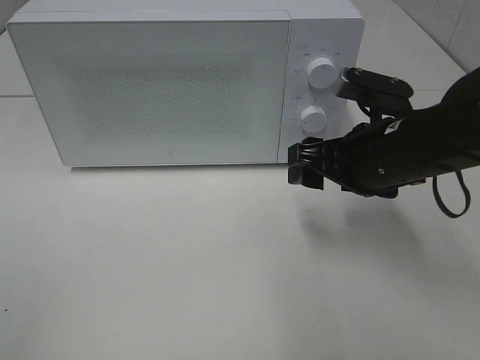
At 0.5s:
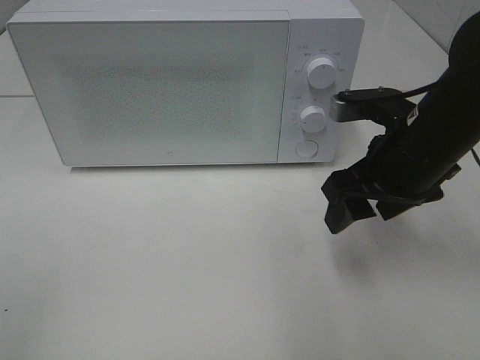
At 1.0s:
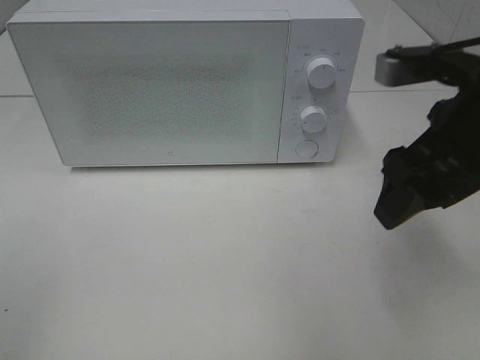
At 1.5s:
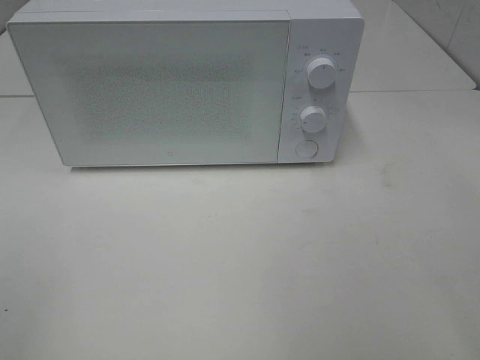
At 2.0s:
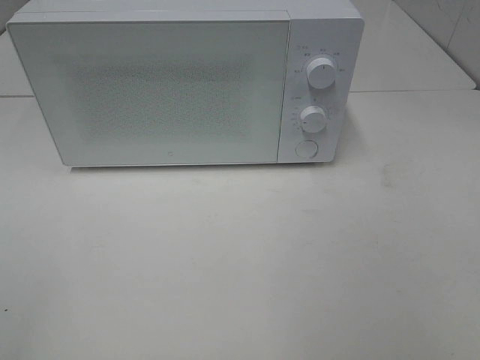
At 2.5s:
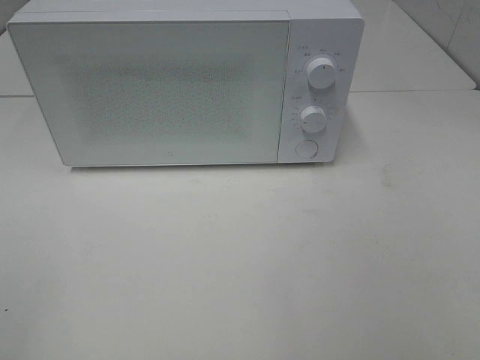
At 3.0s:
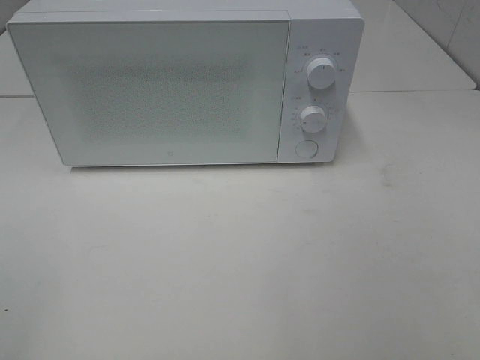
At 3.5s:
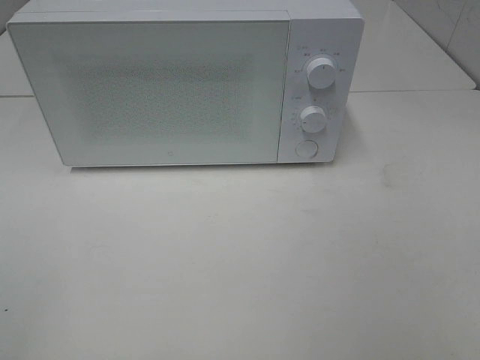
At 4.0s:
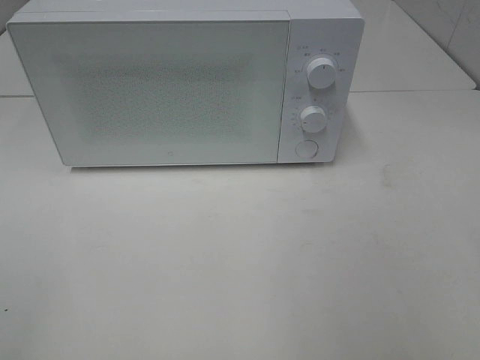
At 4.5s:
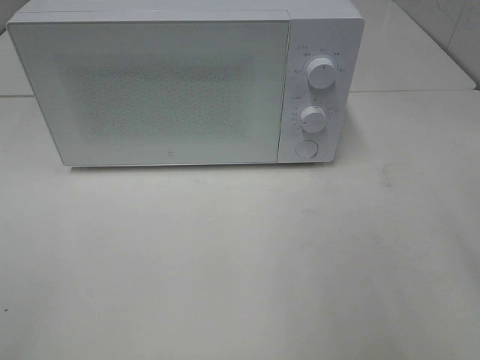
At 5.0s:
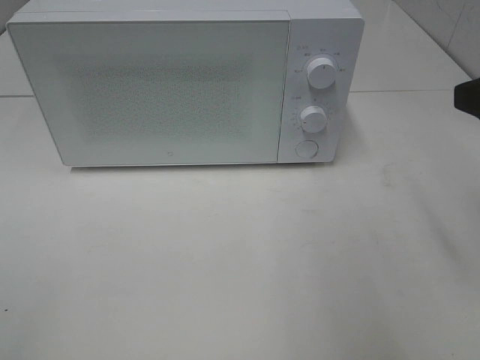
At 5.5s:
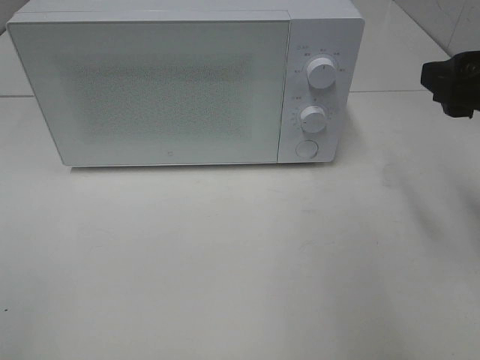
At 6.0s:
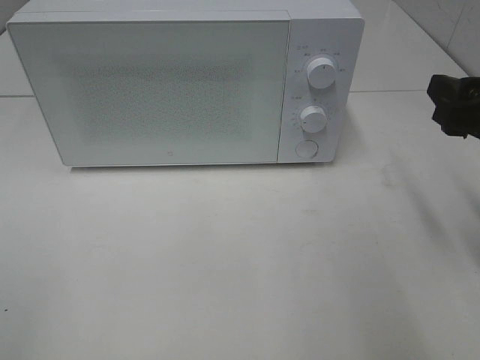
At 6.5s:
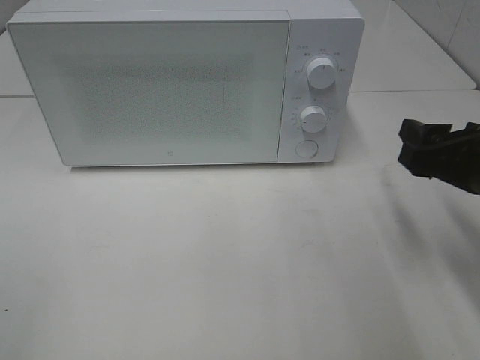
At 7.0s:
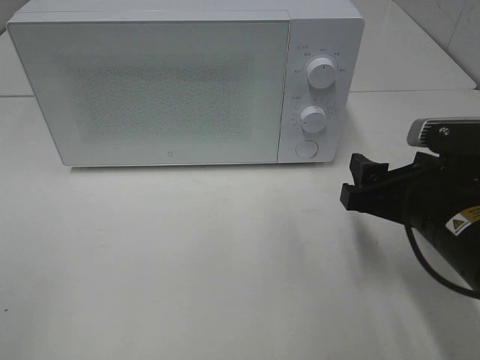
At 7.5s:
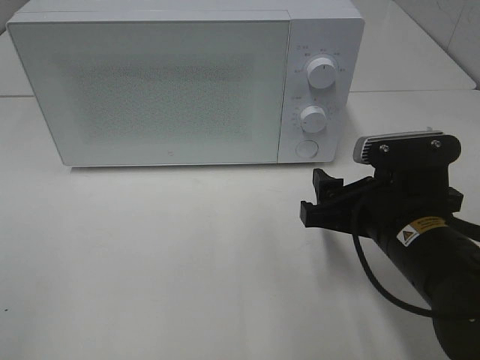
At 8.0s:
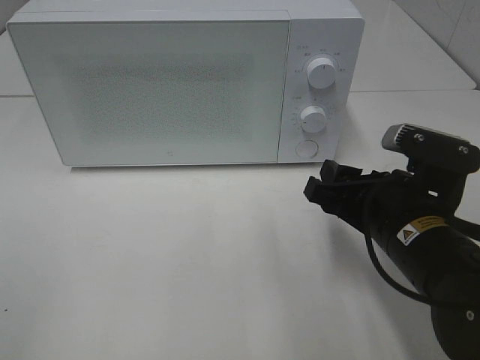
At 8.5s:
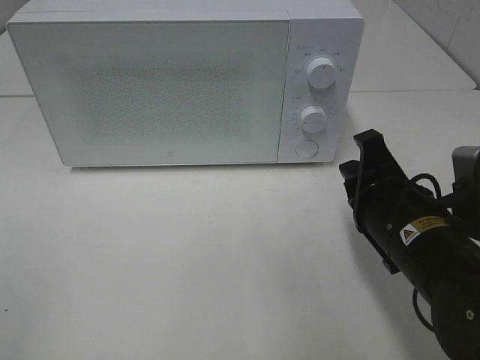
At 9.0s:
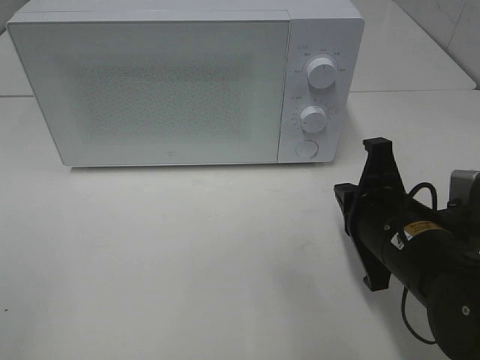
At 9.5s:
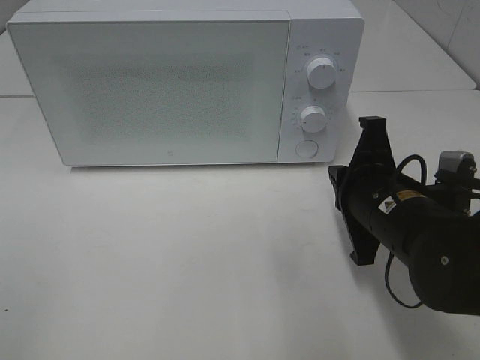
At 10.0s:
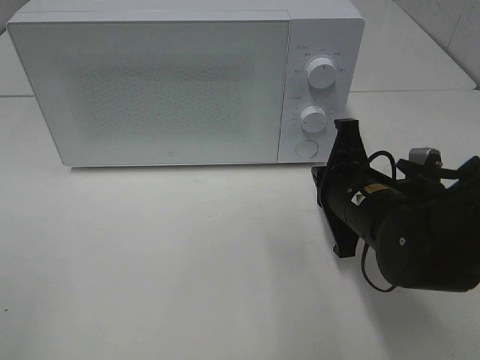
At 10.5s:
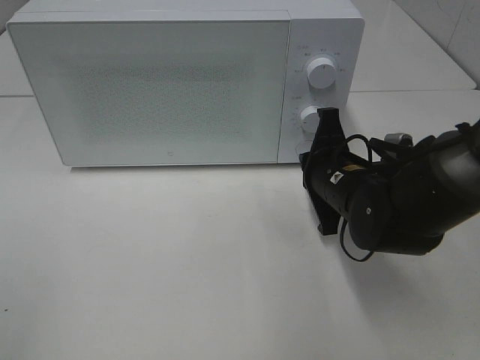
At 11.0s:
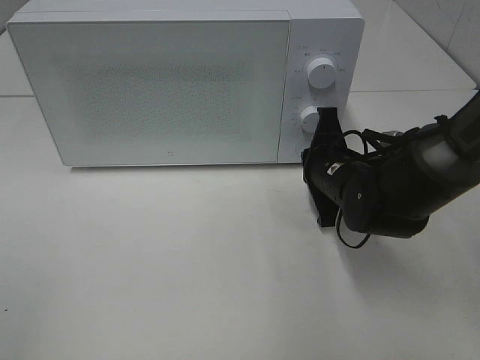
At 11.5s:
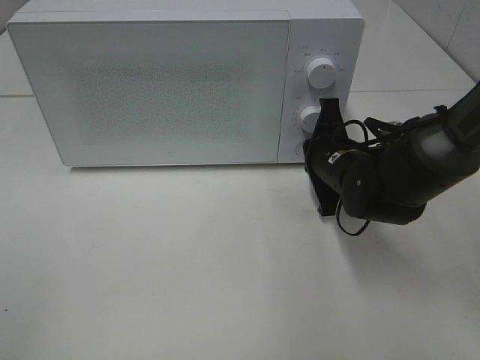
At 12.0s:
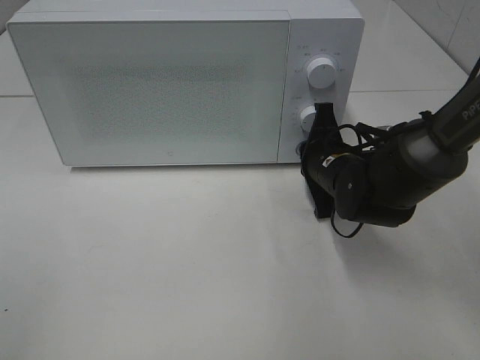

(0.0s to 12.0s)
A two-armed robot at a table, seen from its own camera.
Task of the whole recording: Heat the burger.
0.0s - 2.0s: The right gripper shifts approximately 30 cm backward, upward and to the right.
4.0s - 6.0s: The right gripper shifts roughly 20 cm forward and downward.
6.0s - 8.0s: The right gripper heads to the left and downward, covering roughly 15 cm.
8.0s - 10.0s: The right gripper shifts some 5 cm forward, and closes.
10.0s - 12.0s: The right gripper travels forward by roughly 10 cm.

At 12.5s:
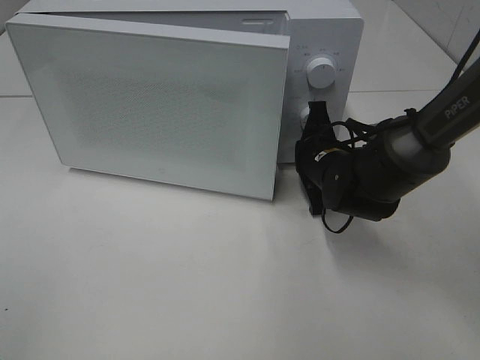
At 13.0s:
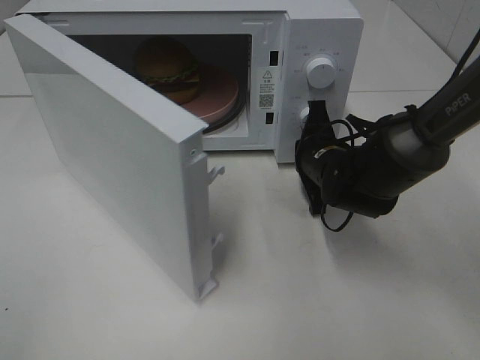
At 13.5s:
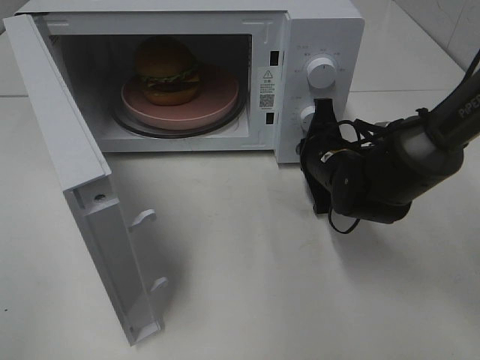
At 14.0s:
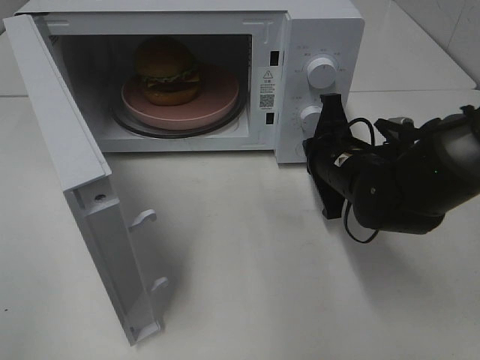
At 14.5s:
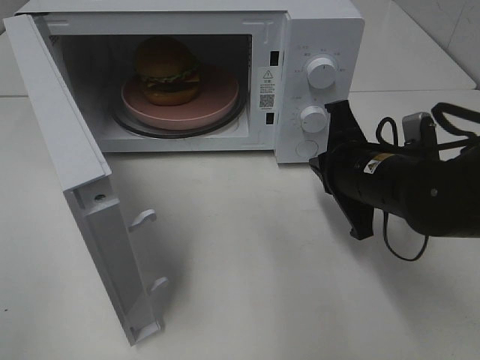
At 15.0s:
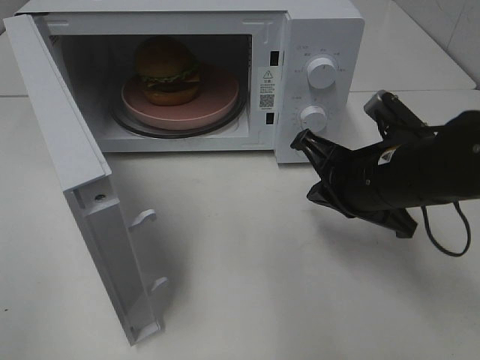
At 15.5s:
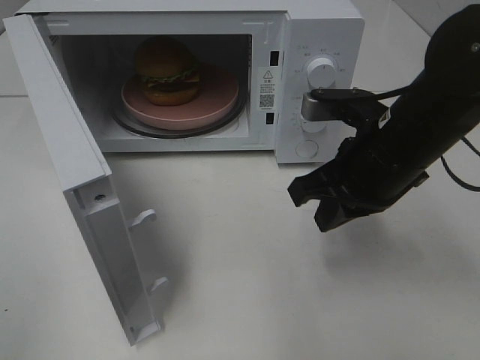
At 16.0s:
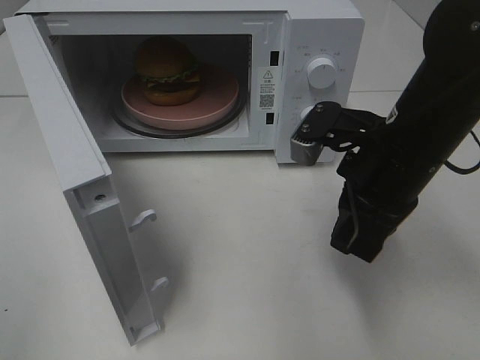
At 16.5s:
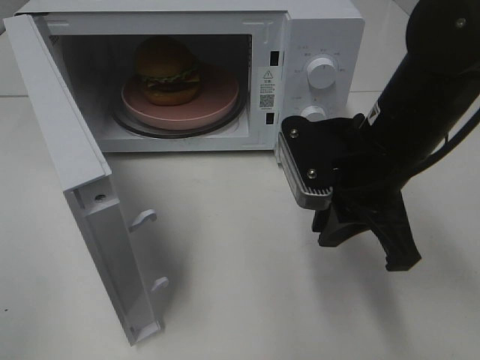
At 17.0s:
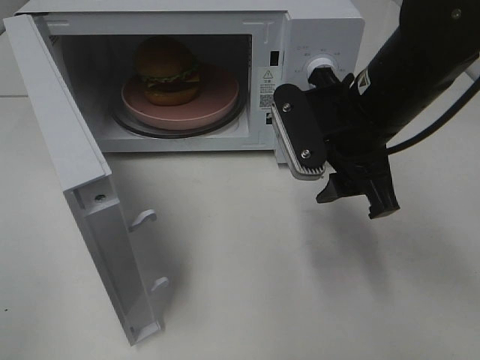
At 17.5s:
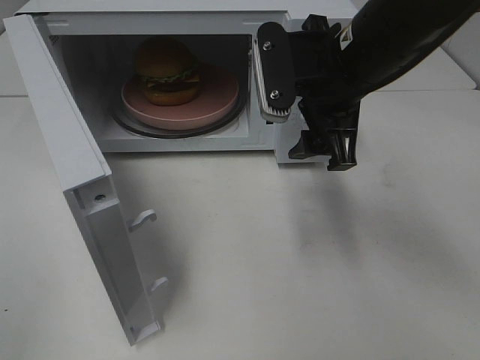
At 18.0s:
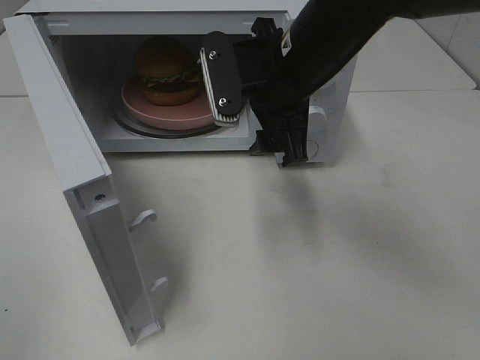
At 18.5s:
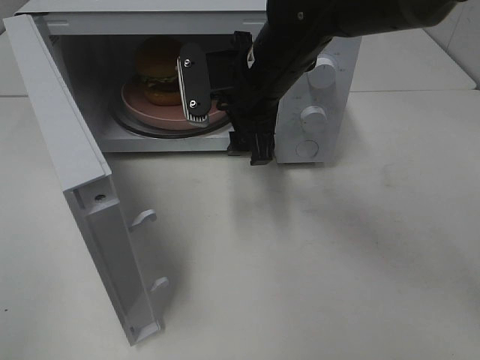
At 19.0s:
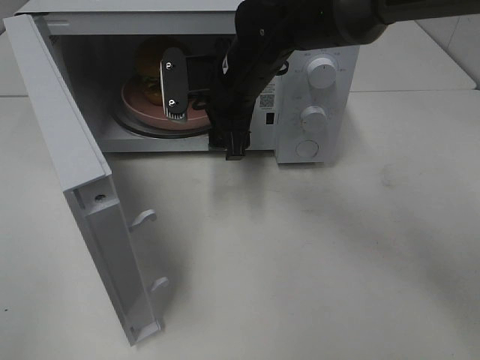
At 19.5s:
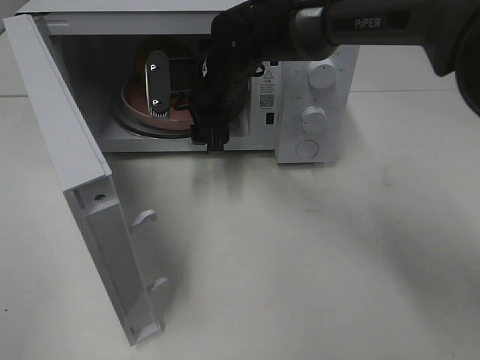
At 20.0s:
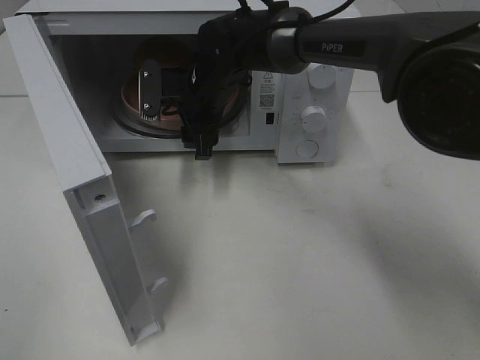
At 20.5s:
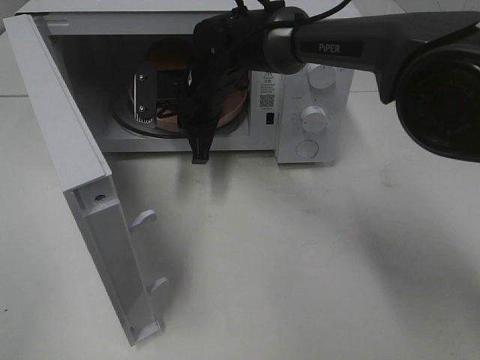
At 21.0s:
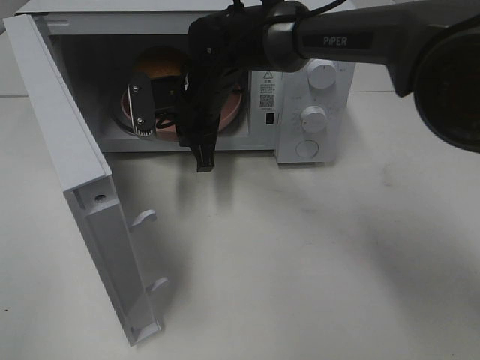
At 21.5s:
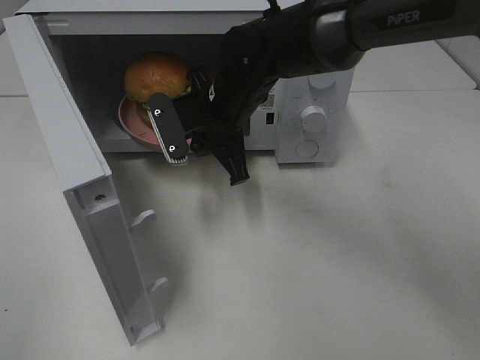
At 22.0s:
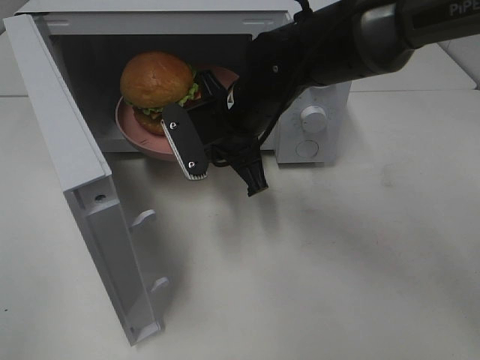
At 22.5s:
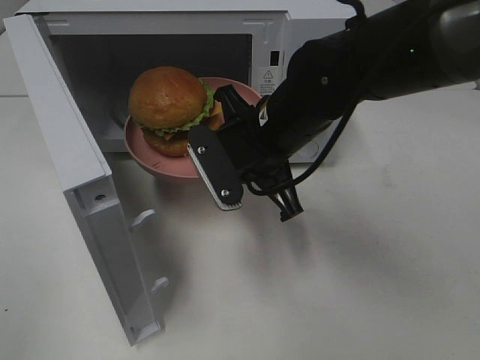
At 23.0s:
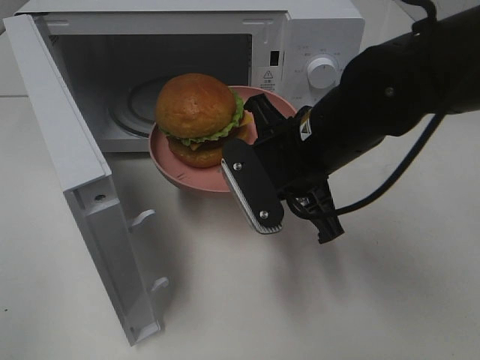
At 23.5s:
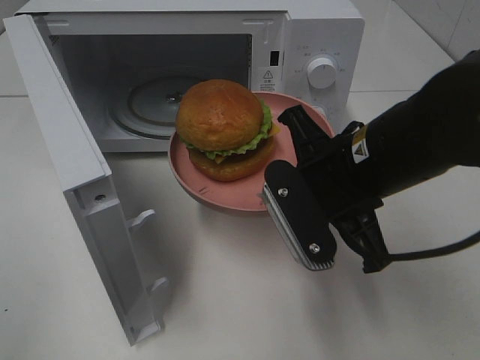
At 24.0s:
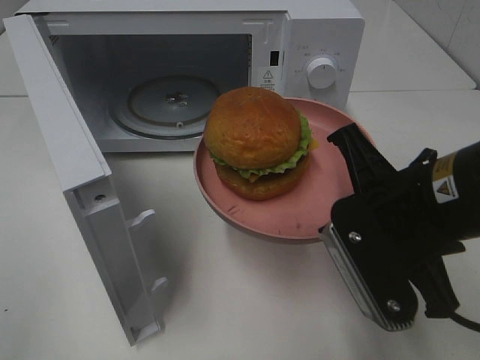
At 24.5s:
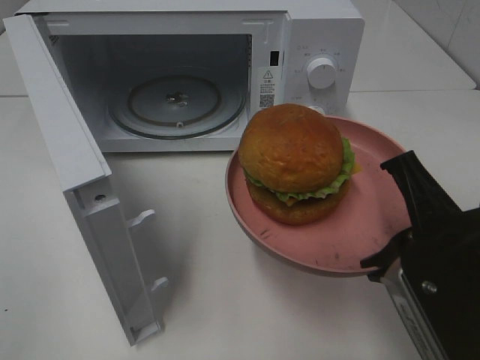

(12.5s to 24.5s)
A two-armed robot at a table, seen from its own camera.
Task of the whole recording: Heat the burger.
Step, 14.5s - 20.5s: Right hand: grab the plate with the hamburger.
12.5s - 14.5s: The right gripper shifts roughly 10 cm backward and upward.
14.5s - 16.5s: The right gripper is displaced upward by some 5 cm.
16.5s - 18.5s: The right gripper goes about 15 cm forward and to the left, and opens up.
18.5s - 20.5s: The right gripper moves forward, to the left and downward, roughly 10 cm, and closes its fingers.
20.5s - 22.5s: The right gripper shifts about 15 cm backward and to the right.
22.5s - 24.5s: The right gripper heads backward and to the right, covering approximately 20 cm.

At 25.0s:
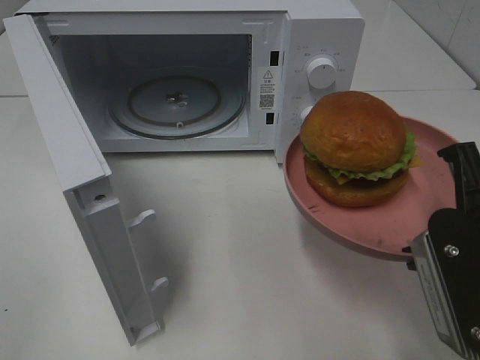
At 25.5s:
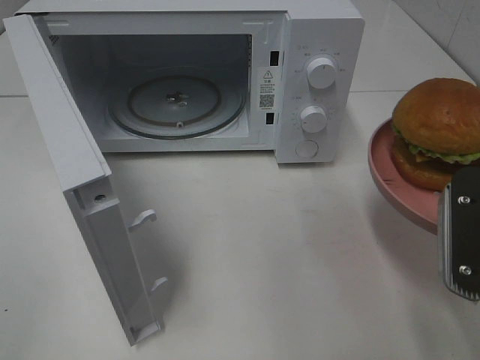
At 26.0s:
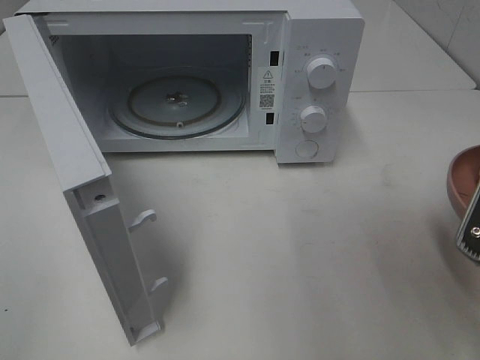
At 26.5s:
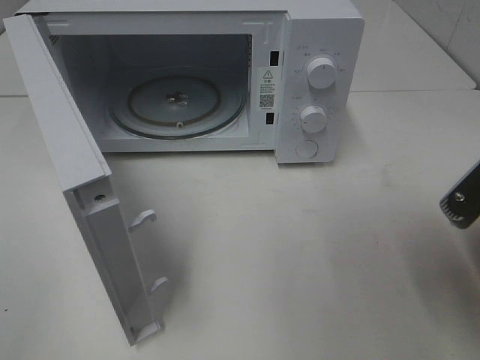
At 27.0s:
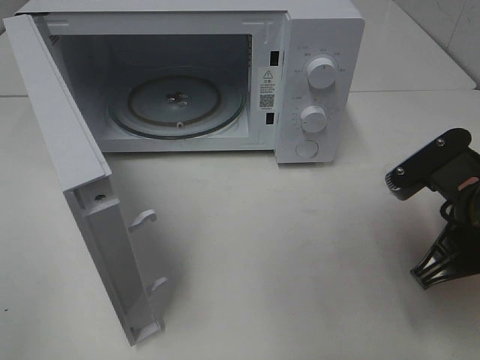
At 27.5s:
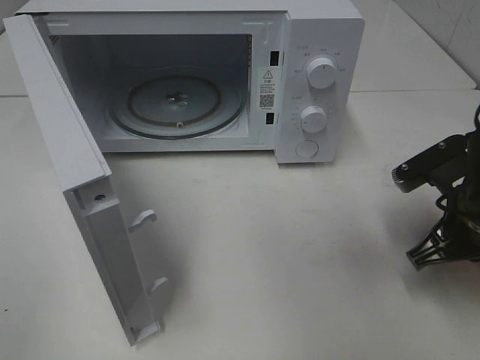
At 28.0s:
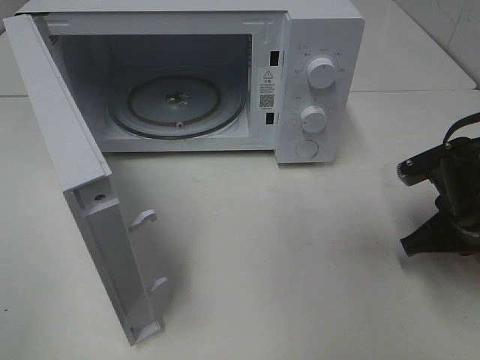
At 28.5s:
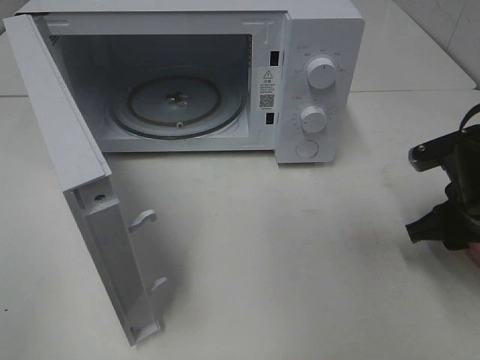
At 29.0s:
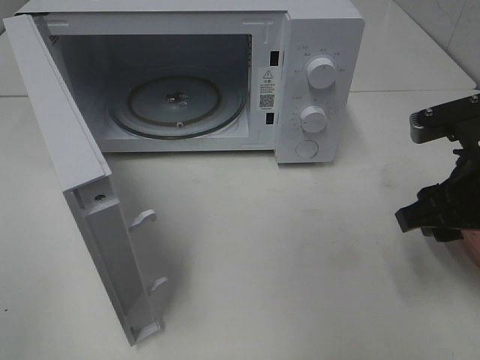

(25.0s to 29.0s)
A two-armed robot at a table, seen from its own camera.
Task of the whole recording: Heat the burger.
Step, 25.0s - 28.5s: Right hand: place the plate on the table.
25.0s - 27.0s: The right gripper travels forward and downward by approximately 10 cm.
27.0s - 29.0s: The right gripper reaches roughly 5 cm downward, then returns, and opens its fingers.
